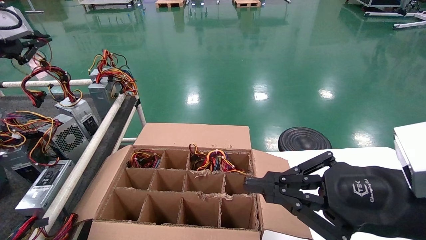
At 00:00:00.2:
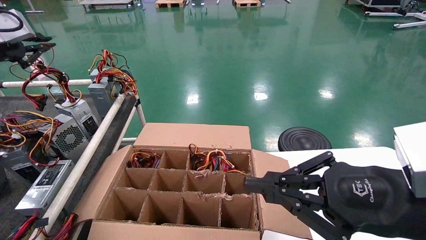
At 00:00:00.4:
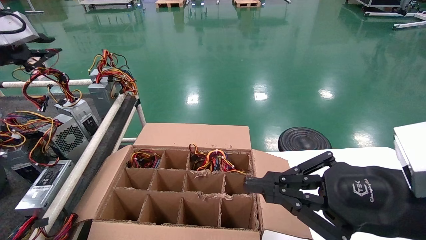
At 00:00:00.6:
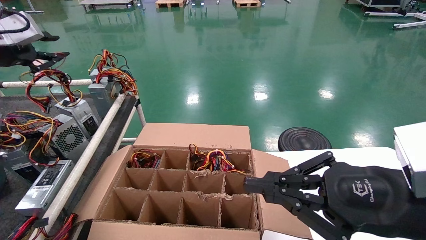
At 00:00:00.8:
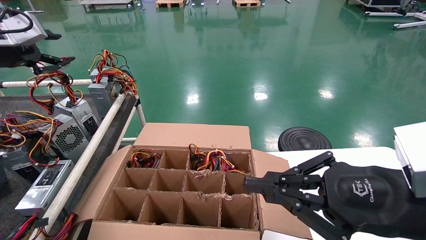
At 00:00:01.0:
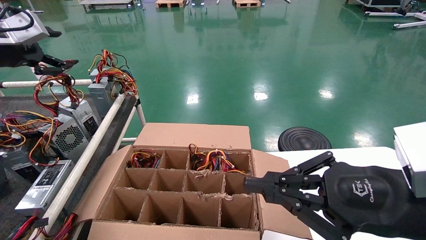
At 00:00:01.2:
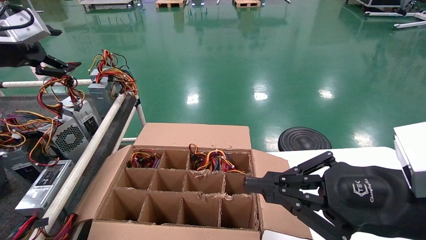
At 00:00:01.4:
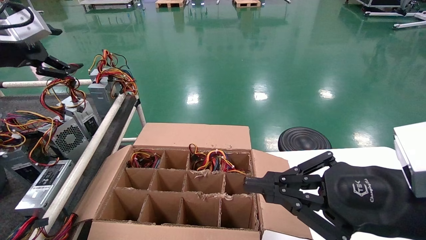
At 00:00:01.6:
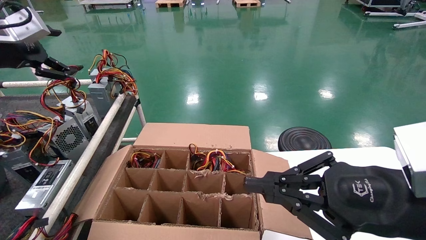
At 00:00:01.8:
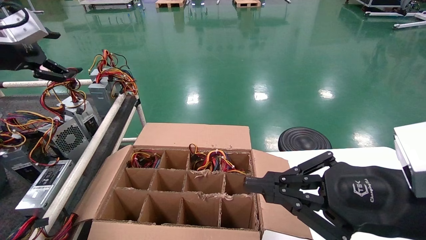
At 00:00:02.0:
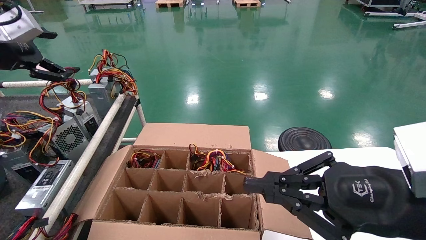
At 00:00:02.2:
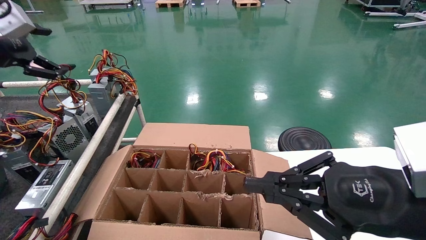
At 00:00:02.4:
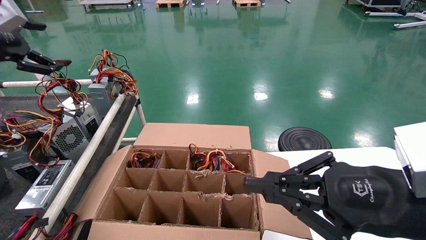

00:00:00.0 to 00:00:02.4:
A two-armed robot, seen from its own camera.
00:00:00.0 to 00:00:01.2: The left gripper opens its fingers.
00:00:01.2 to 00:00:02.4: The left gripper opens up.
